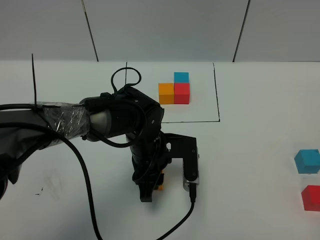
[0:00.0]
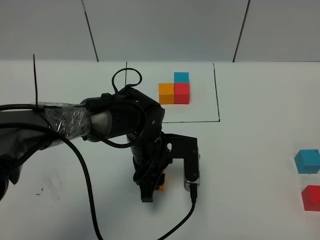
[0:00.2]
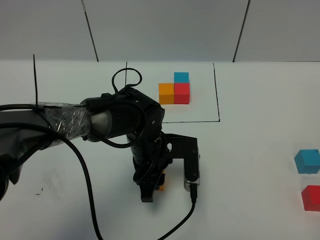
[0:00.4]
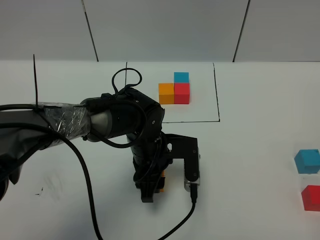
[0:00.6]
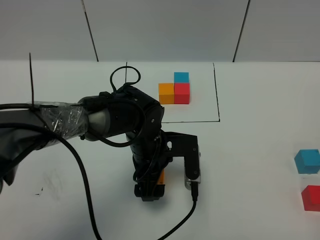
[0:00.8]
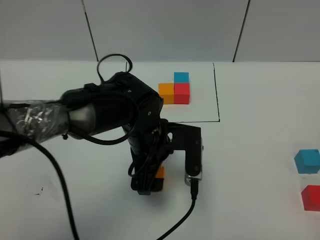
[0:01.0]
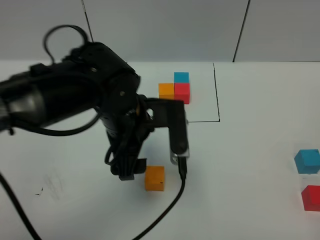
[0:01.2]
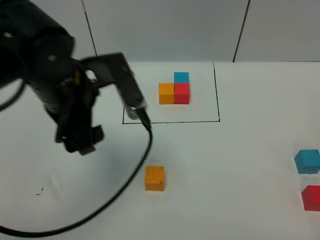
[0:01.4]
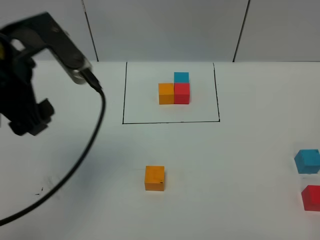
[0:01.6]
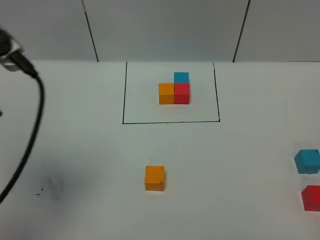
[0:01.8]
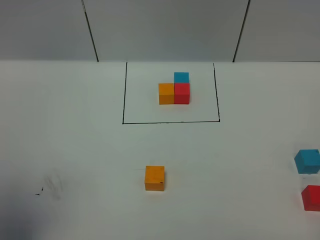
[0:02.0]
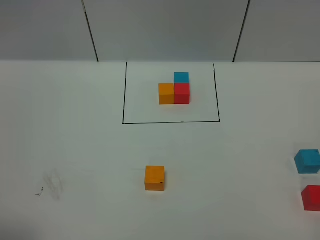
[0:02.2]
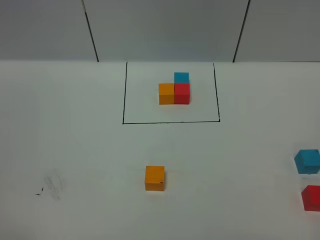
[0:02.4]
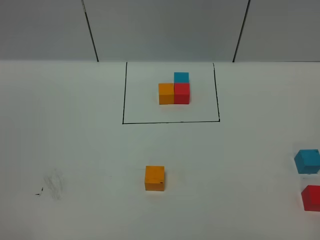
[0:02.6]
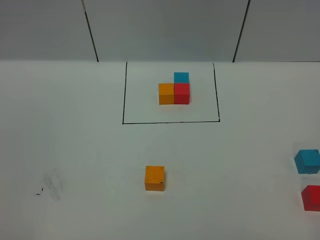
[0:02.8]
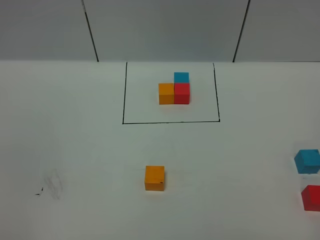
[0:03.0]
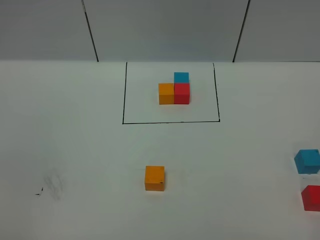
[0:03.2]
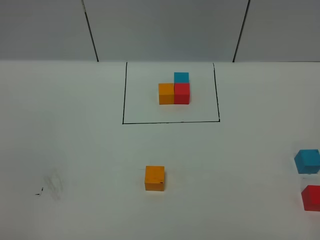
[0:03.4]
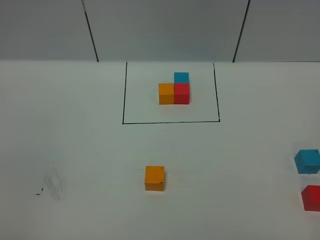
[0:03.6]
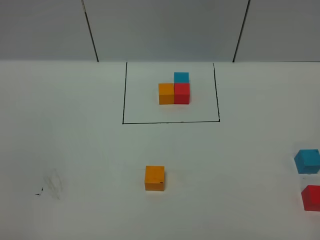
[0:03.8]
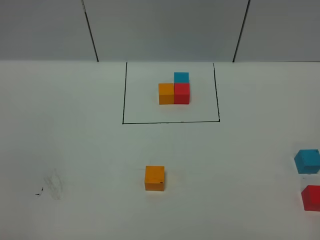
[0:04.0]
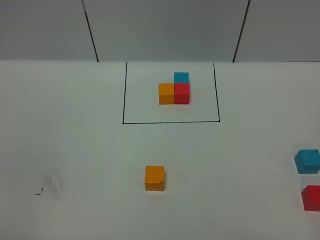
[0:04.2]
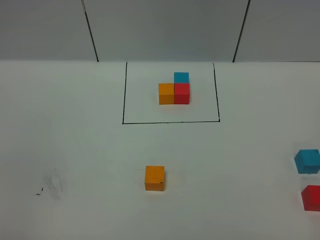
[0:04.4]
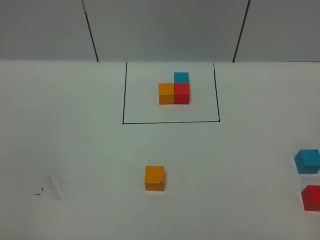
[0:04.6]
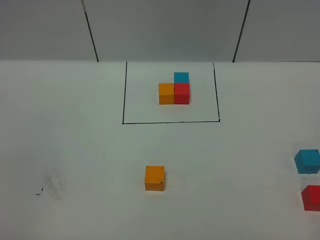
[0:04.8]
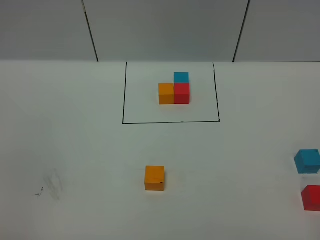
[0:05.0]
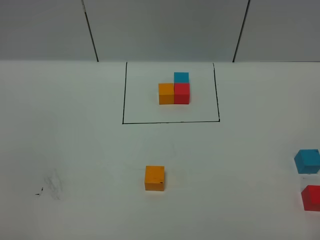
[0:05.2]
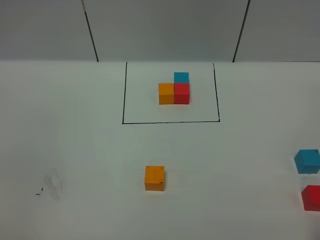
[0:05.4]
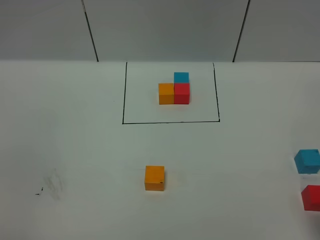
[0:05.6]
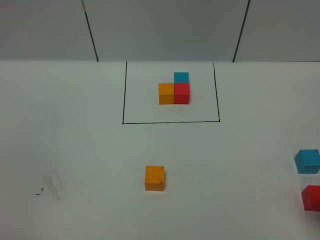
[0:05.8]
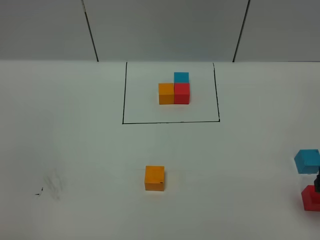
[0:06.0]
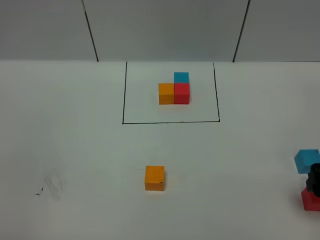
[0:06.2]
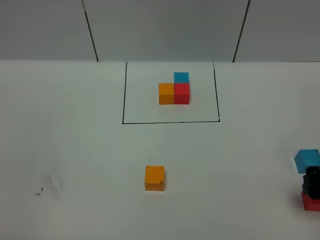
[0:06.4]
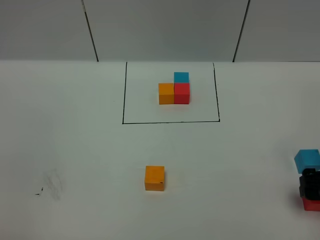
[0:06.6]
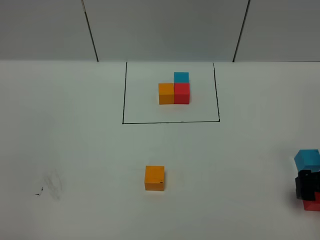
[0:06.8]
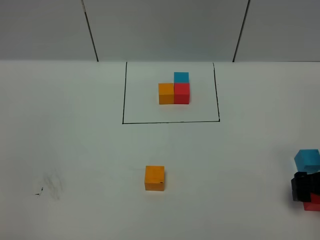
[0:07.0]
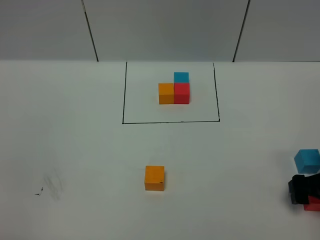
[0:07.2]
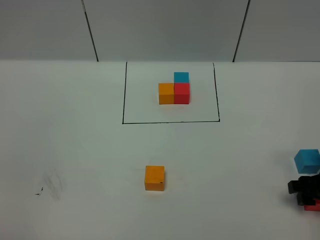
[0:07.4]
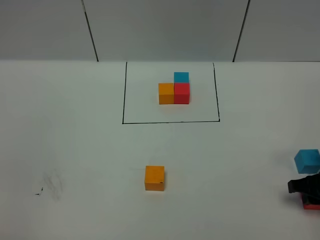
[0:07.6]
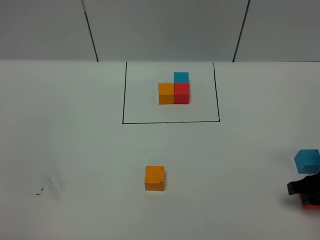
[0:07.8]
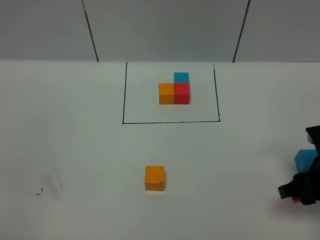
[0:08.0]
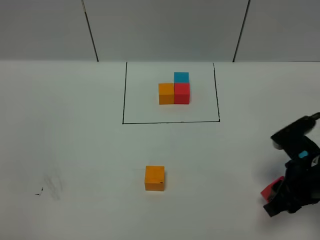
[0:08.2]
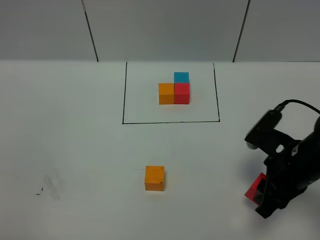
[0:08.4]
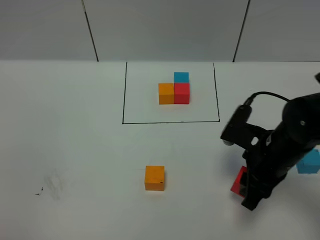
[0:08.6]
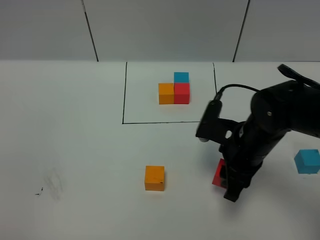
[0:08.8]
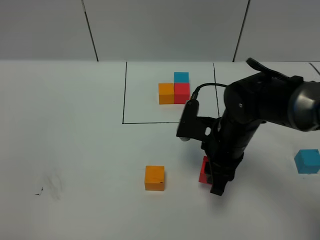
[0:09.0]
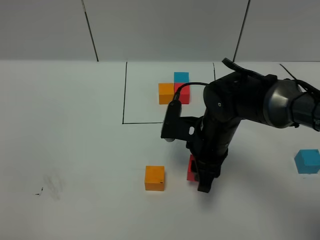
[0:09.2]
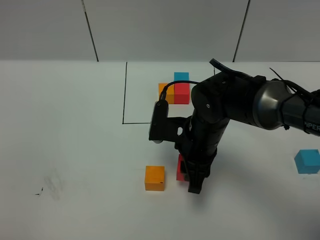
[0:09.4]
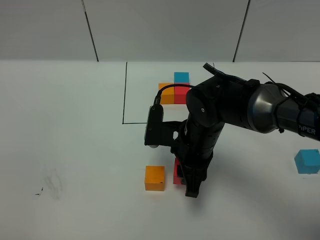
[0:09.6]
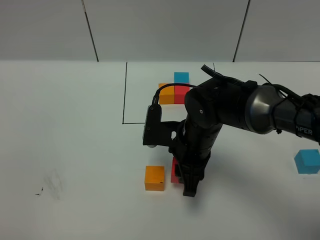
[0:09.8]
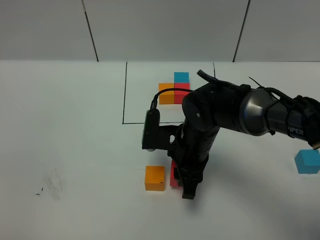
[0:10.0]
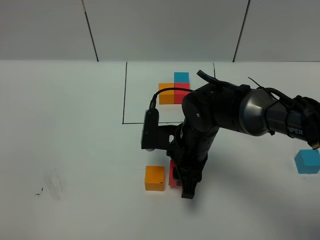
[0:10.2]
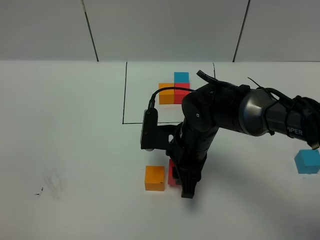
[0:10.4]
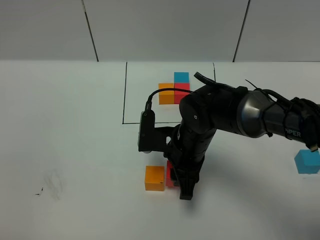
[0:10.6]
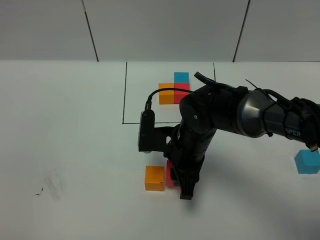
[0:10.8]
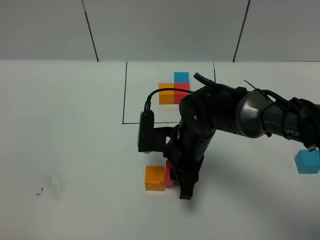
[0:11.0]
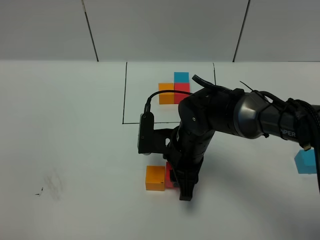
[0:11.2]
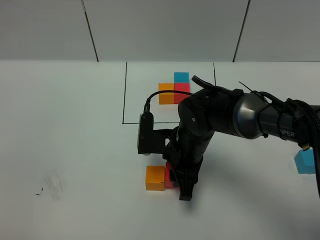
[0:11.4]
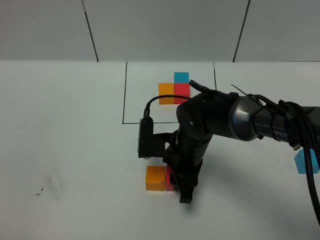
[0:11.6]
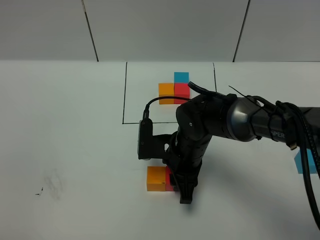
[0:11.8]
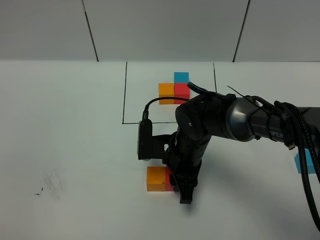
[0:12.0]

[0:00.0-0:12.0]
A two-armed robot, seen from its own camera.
Task of the whole recording: According to the building block template in front, assemble the scattered blocks together.
0:00.0 to 0:01.6: The left gripper shifts some 30 cm upward and to the left, and opens.
0:01.6 to 0:03.0: The left gripper travels backward by roughly 30 cm.
0:06.0 to 0:07.6: The right gripper shifts about 10 cm downward, and closes up.
0:07.6 to 0:09.0: The right gripper shifts some 20 cm to the left.
0:09.0 to 0:10.4: The right gripper goes approximately 5 cm to the left.
0:10.4 to 0:12.0: The grippers move only a little.

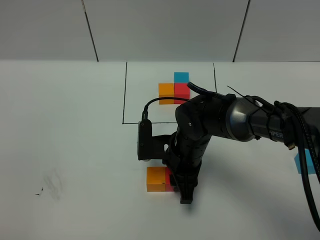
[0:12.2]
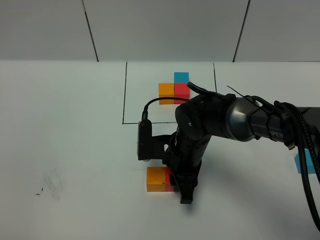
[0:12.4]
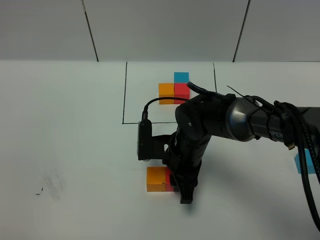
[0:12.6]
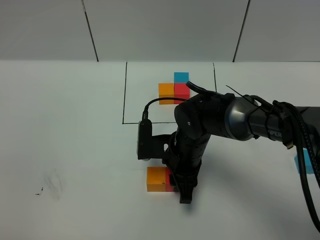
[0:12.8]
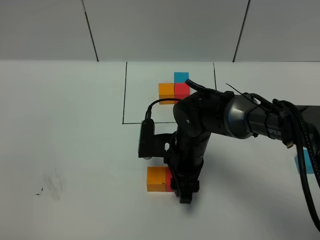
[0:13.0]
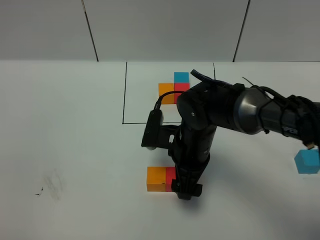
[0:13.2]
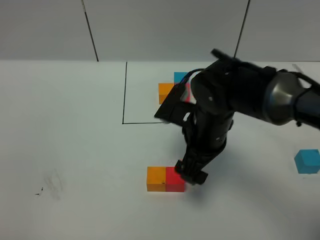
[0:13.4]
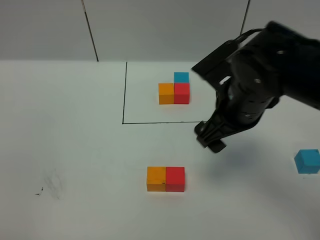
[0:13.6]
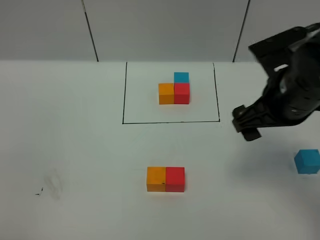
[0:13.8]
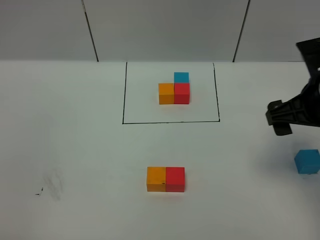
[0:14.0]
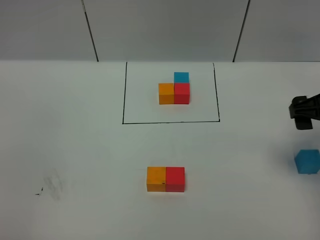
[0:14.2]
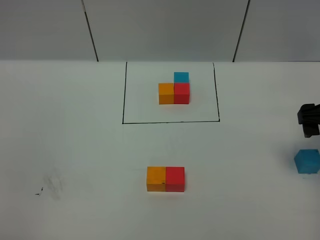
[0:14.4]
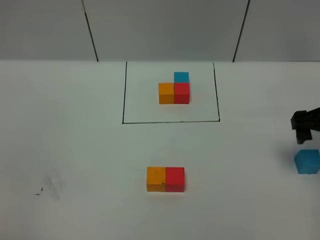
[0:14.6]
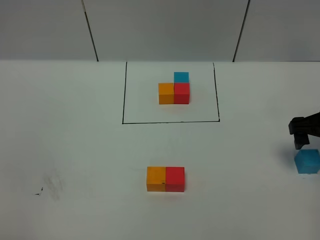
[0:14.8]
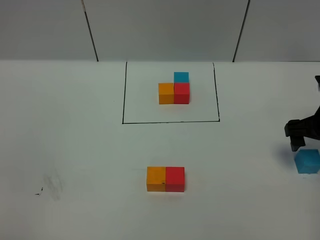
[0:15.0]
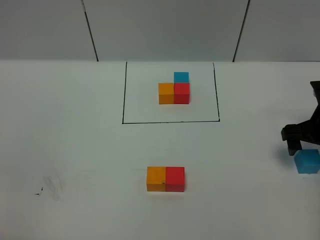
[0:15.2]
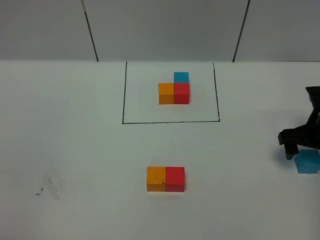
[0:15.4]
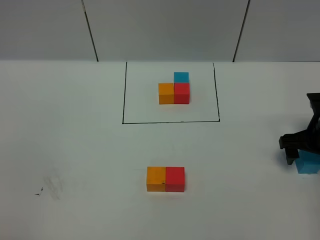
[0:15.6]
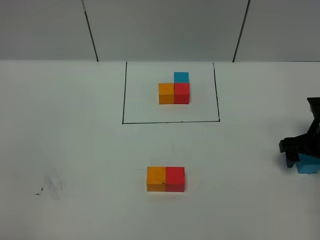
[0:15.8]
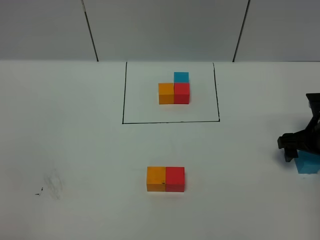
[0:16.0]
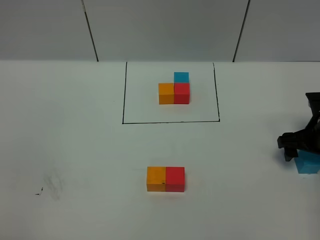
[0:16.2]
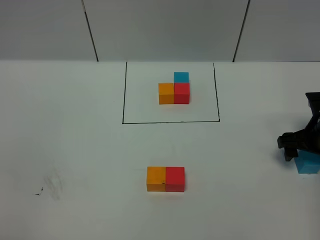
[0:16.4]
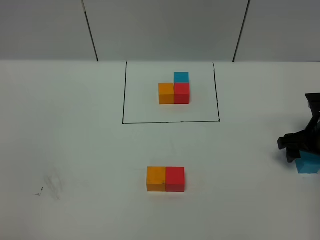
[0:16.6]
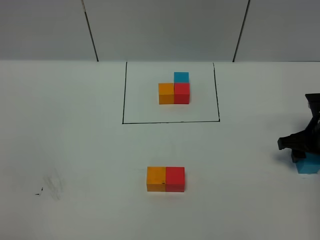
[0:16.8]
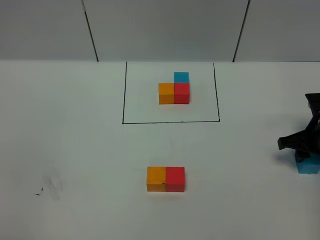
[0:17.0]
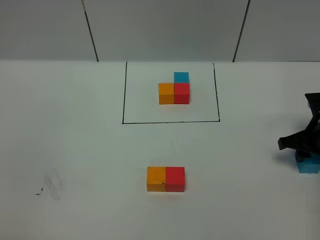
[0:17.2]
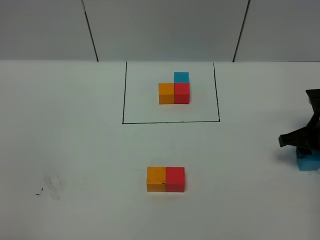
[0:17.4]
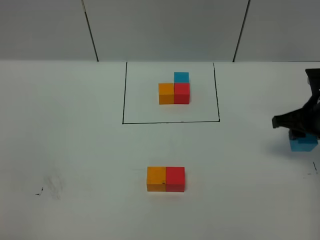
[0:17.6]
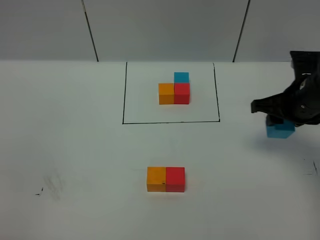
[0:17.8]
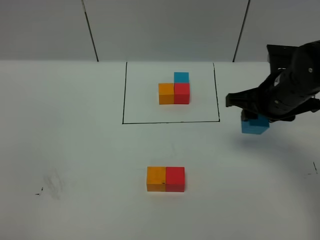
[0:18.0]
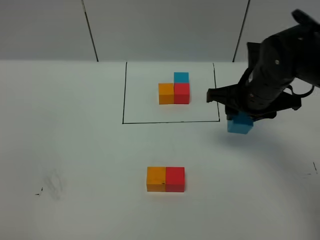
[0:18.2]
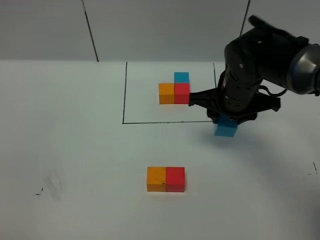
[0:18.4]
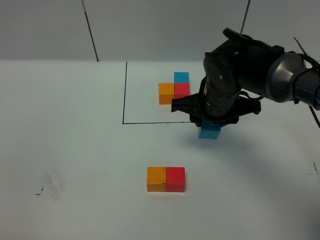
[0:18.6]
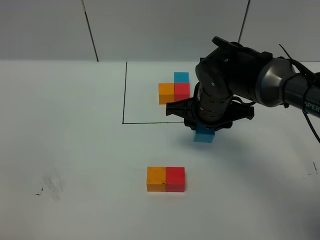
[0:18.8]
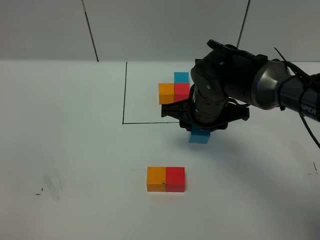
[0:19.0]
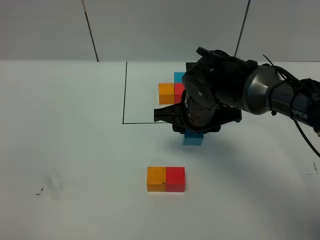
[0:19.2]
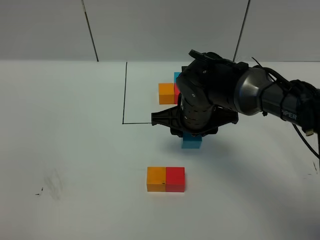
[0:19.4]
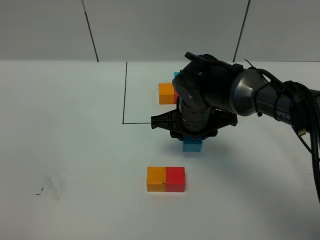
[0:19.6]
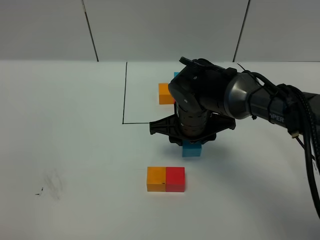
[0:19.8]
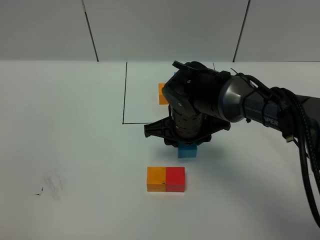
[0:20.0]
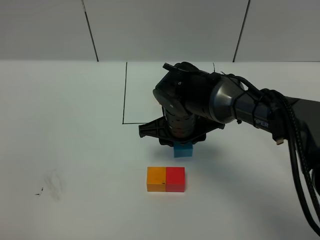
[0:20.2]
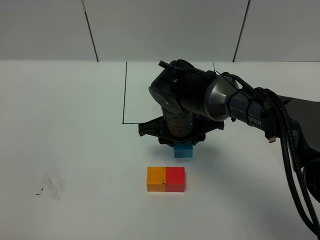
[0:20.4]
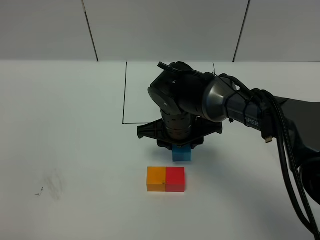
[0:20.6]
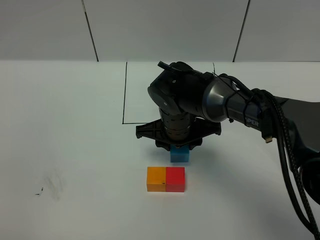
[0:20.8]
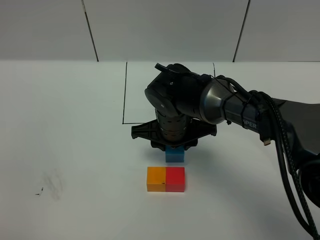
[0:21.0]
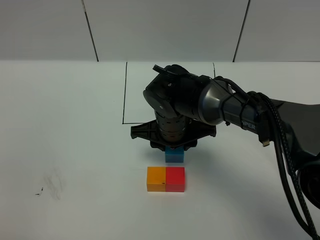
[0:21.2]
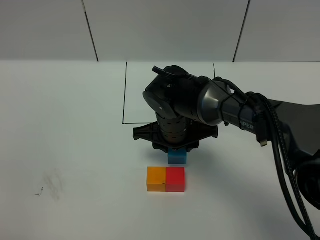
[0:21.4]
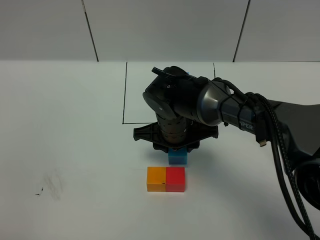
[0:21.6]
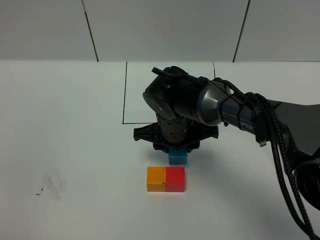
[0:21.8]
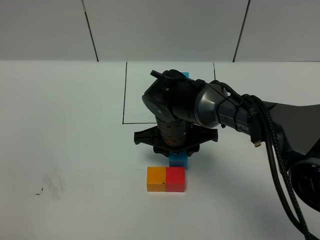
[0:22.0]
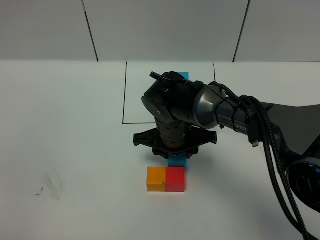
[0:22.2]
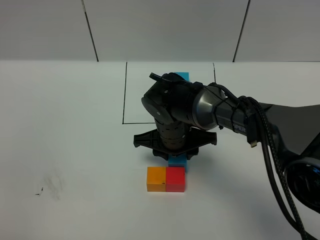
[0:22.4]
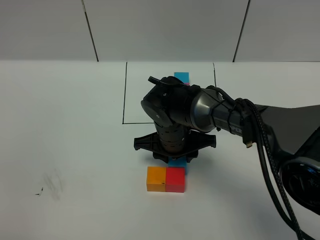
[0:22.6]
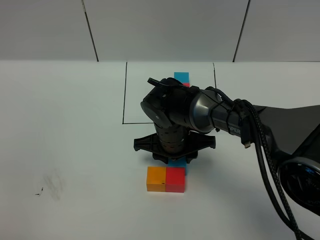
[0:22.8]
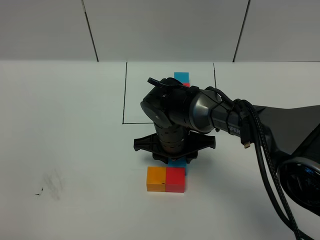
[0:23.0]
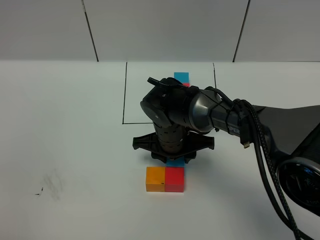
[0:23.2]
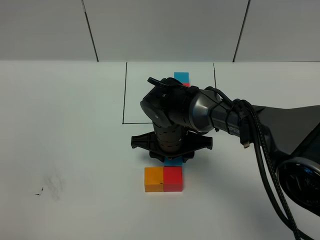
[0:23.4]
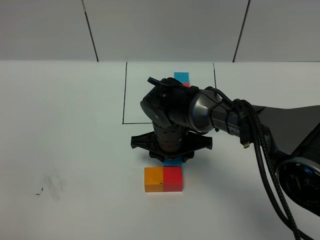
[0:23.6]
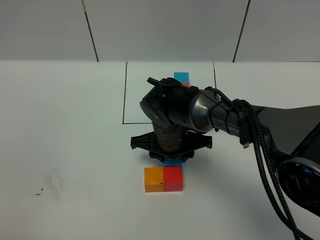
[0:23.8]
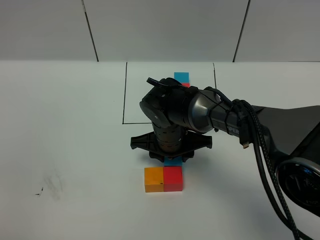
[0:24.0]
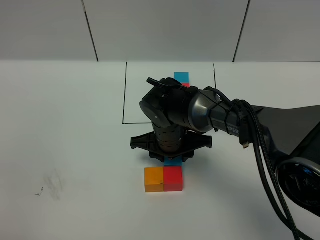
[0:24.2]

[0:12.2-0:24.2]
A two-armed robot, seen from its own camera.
Task of the whole recording: According to the building block template in front, assemble the scattered blocks together.
0:12.2 to 0:13.8: The right gripper moves upward and to the right, about 20 cm, and opens.
0:13.8 to 0:15.2: The right gripper travels downward, to the right and forward by some 20 cm.
0:15.2 to 0:16.6: The grippers stay close to where they were, moving slightly.
0:16.6 to 0:18.2: The right gripper moves to the left and upward, about 20 cm, and closes its fingers.
0:18.2 to 0:19.8: The right gripper heads to the left and downward, covering about 15 cm.
0:19.8 to 0:22.6: The grippers move only a little.
0:22.6 to 0:24.2: The two grippers keep their place.
